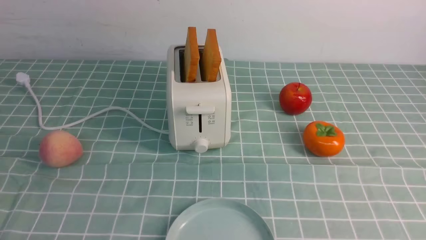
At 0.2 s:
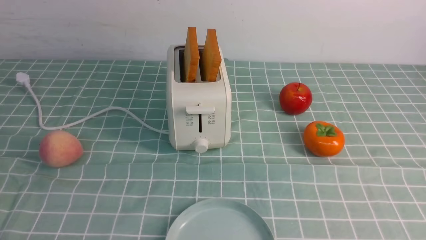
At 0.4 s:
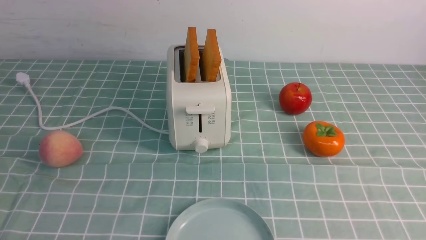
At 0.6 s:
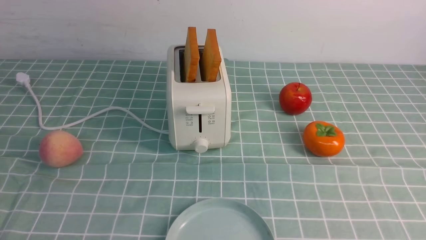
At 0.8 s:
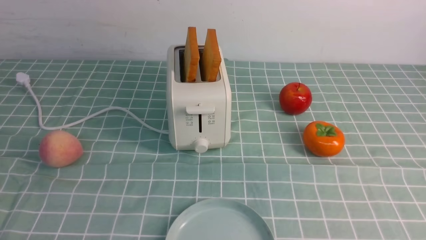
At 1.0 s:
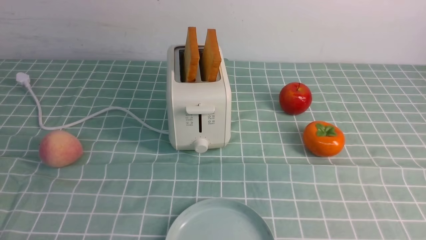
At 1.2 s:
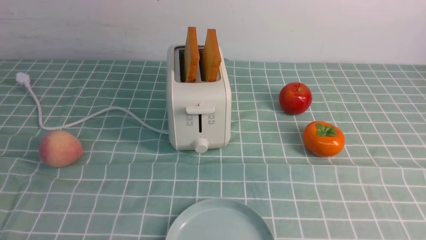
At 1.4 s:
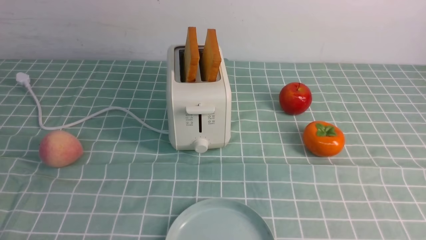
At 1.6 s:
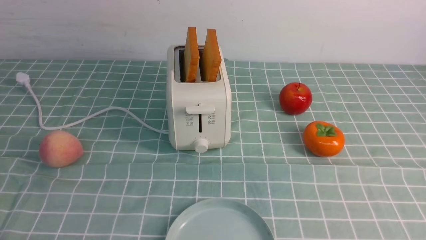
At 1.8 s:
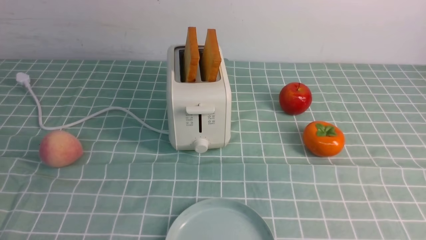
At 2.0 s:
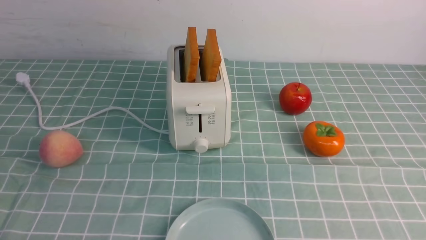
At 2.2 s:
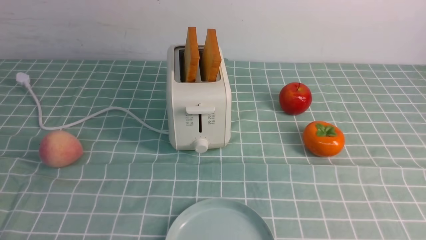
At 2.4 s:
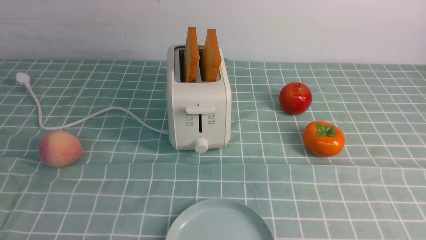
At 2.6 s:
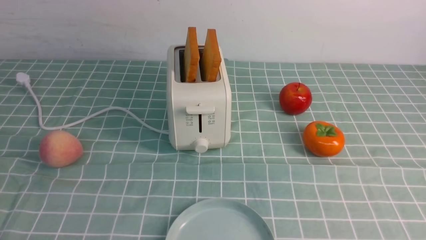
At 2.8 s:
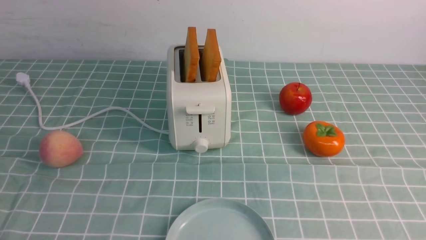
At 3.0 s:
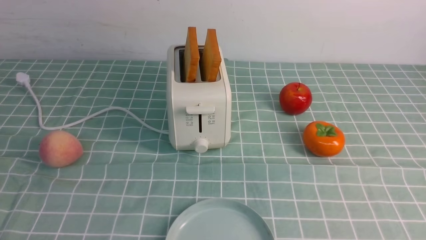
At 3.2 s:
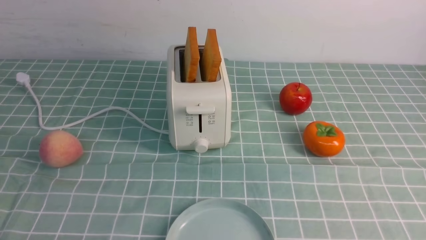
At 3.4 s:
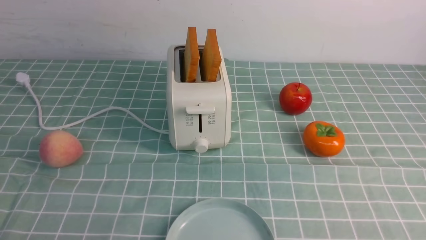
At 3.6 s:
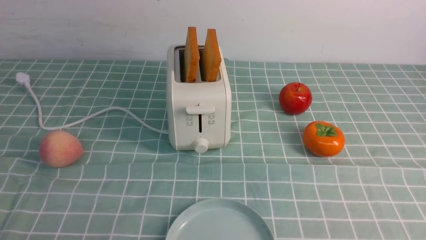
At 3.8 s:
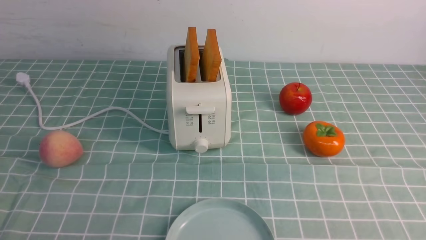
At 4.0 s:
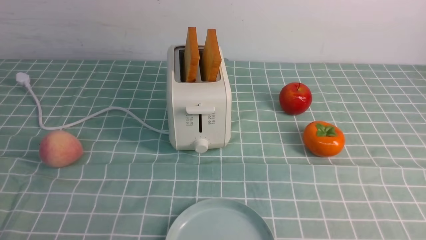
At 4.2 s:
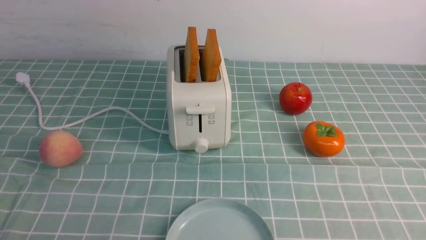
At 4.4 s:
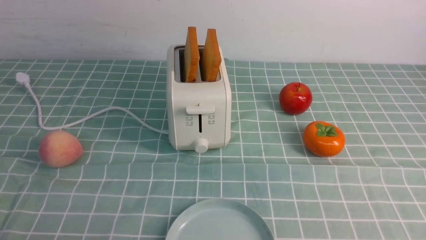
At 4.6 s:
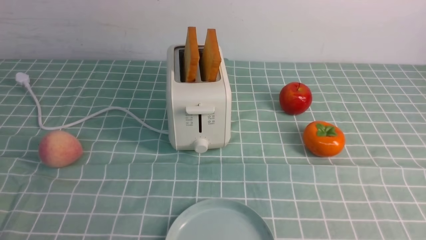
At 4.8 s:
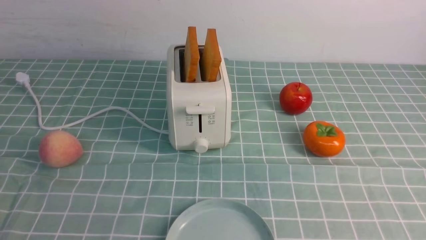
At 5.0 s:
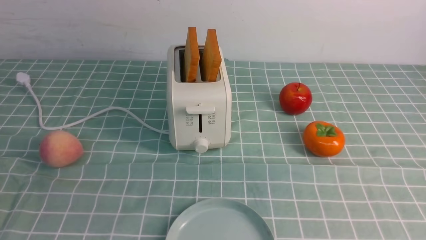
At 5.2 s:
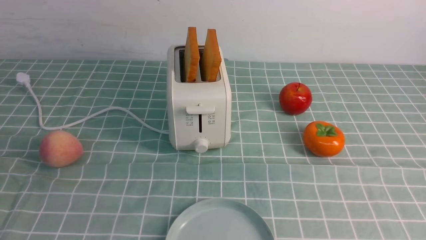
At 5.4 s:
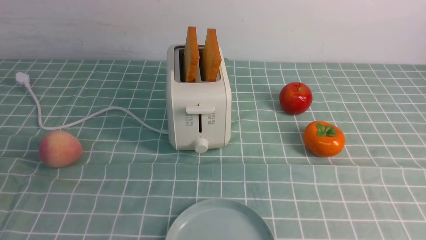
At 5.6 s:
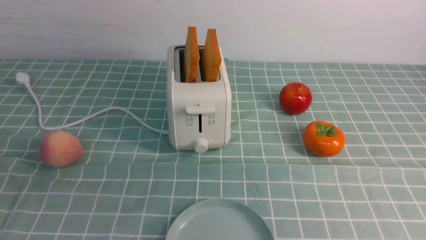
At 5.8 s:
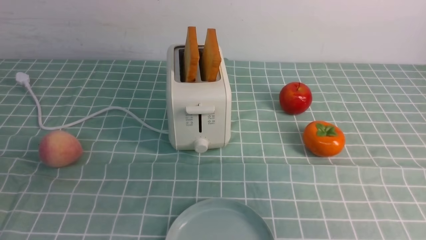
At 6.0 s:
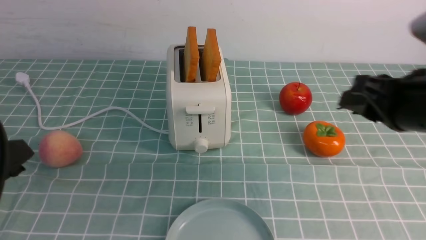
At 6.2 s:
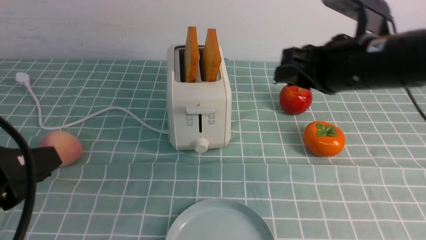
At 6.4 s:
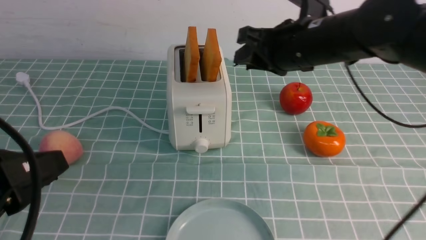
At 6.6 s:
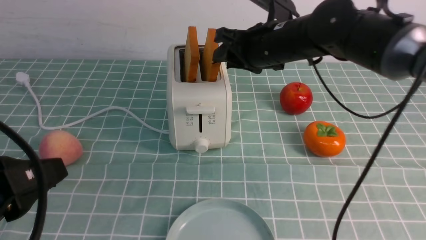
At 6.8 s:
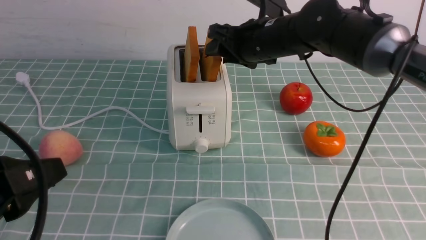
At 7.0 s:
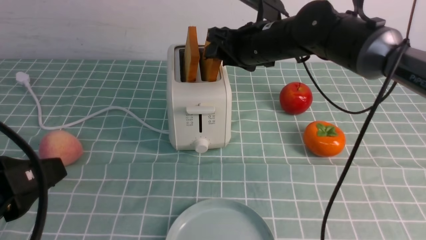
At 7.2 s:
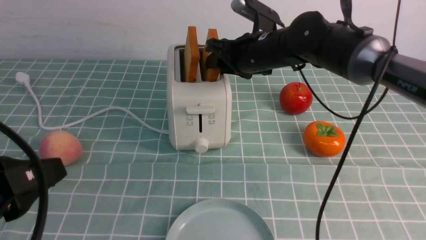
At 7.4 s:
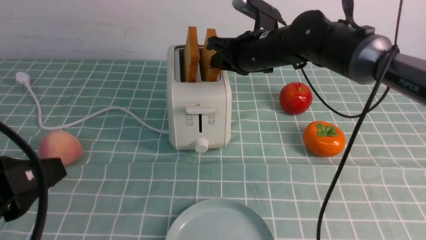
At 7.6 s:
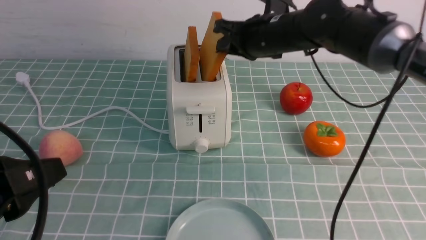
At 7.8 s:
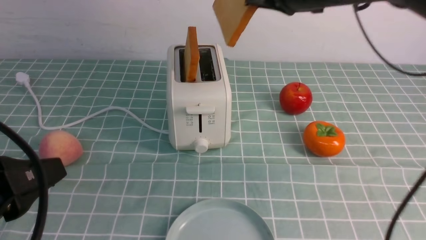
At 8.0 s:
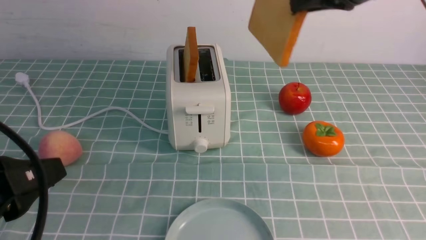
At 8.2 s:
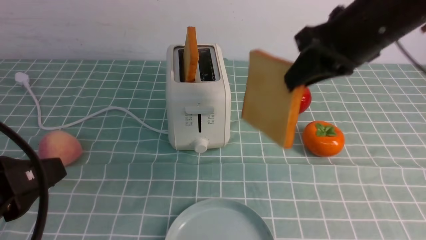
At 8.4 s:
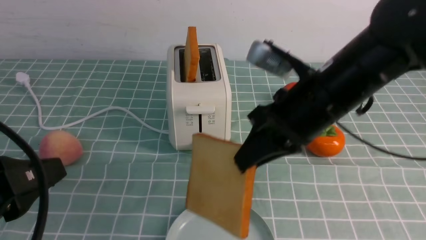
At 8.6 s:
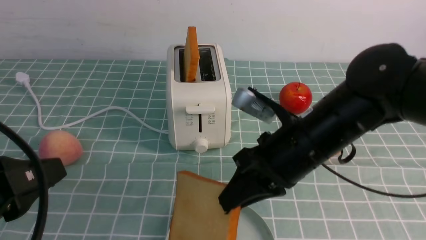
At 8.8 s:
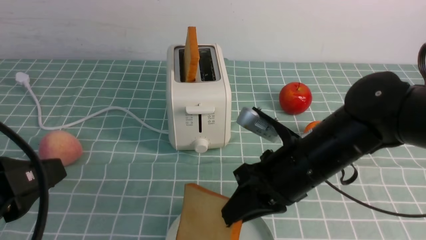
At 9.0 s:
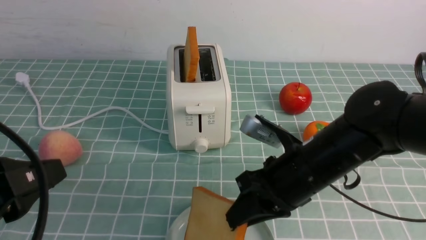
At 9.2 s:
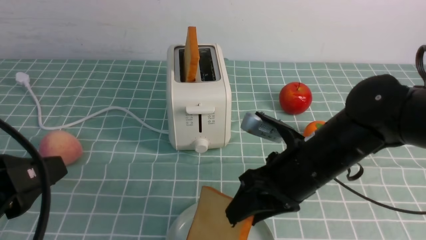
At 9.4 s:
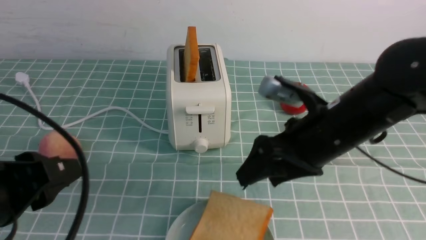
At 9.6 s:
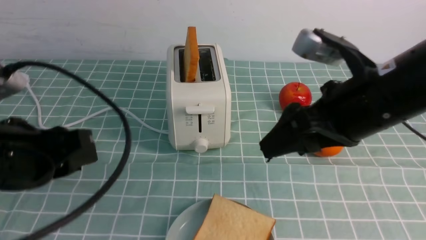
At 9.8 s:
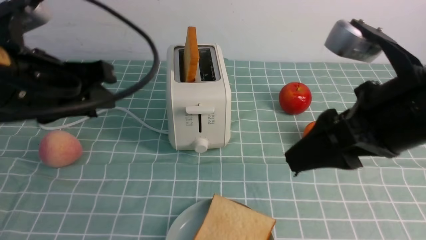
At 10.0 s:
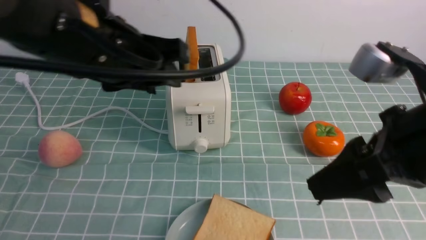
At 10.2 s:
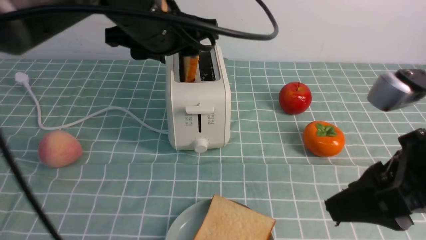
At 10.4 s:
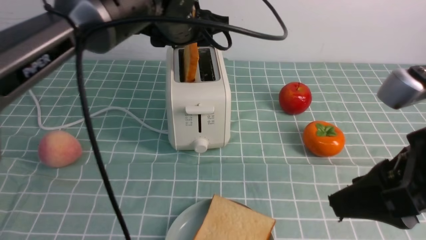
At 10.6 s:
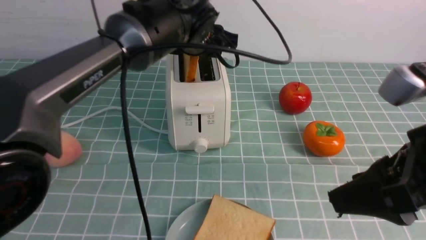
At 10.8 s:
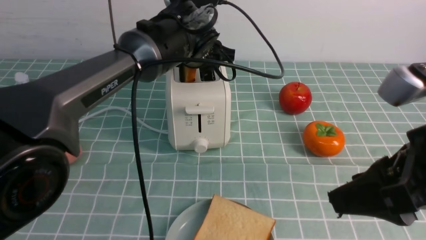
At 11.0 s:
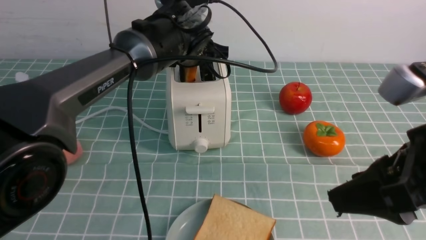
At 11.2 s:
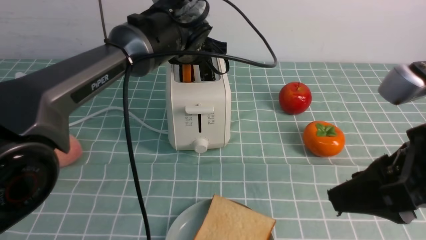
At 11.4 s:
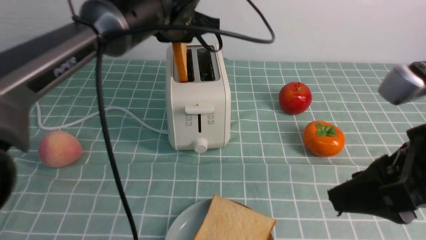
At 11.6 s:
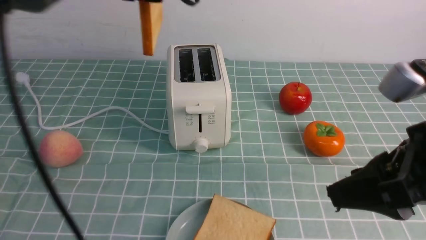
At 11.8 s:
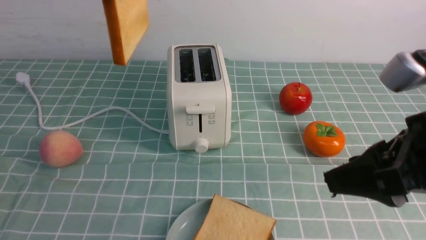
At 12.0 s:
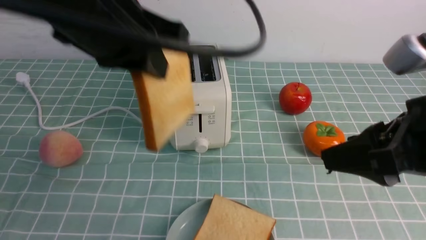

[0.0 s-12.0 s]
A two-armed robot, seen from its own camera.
Task of the whole recording: take toasted bread from bread machine on blue coffee table place on plate.
Step, 0.0 to 7.8 s: use the right arm to take out a slice of bread.
Step, 8.0 to 9.4 s: use the right arm to put a slice of bread into the plate.
Step, 9.6 to 11.6 s: use the left arm to take out a slice of bread.
0.0 to 1.6 s: Both grippers stay put.
4.4 to 6.0 s: The right gripper moves forward and upward, about 25 cm; the left gripper goes some 10 cm upward and forward.
6.0 to 7.6 s: The right gripper moves forward and to the left, roughly 20 cm.
7.6 to 9.0 s: The right gripper shifts roughly 20 cm backward and downward.
9.0 to 10.4 s: The left gripper moves forward and to the right, roughly 35 cm, and opens up, while the right gripper travels upward, backward and to the right by approximately 20 cm, and opens up.
10.4 to 12.0 s: The left gripper shifts roughly 15 cm backward, and closes its fingers.

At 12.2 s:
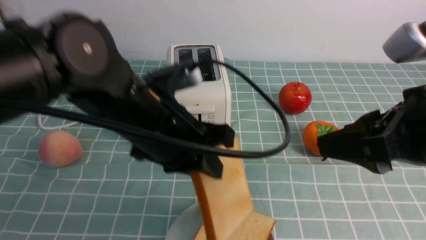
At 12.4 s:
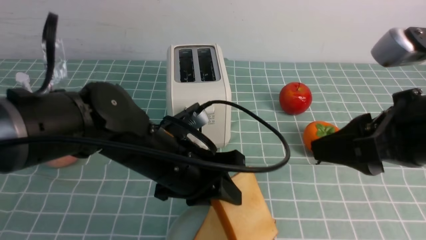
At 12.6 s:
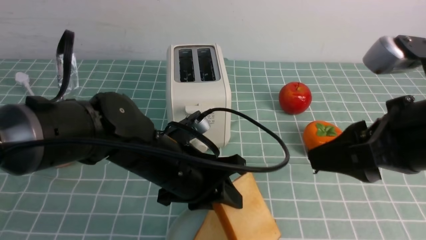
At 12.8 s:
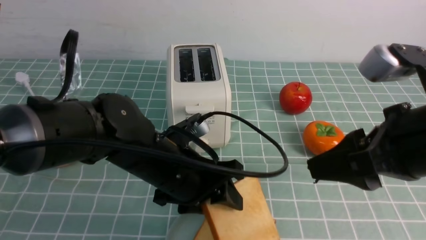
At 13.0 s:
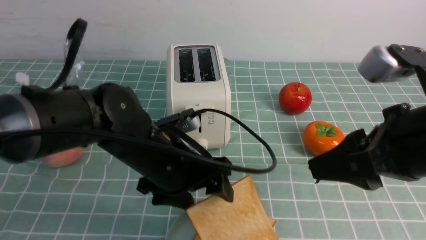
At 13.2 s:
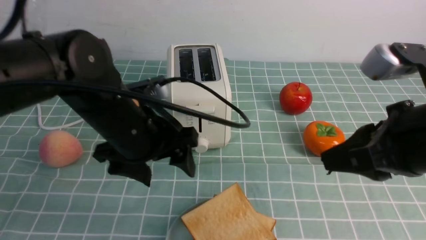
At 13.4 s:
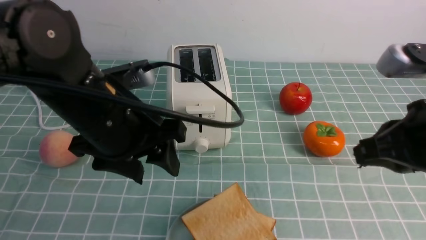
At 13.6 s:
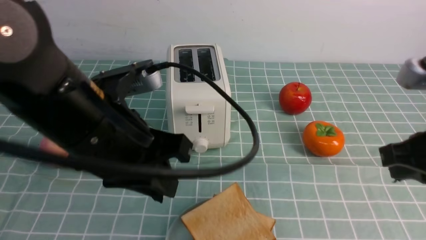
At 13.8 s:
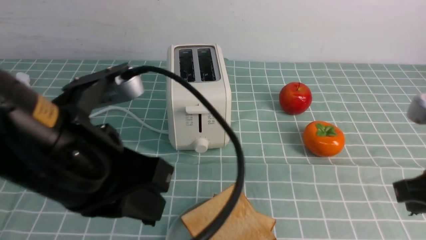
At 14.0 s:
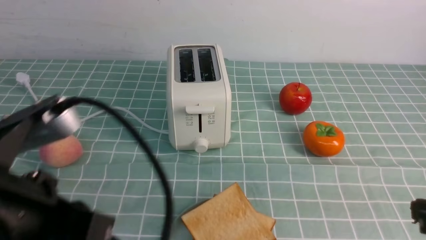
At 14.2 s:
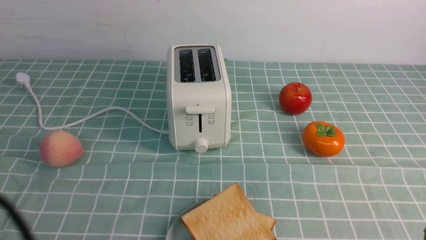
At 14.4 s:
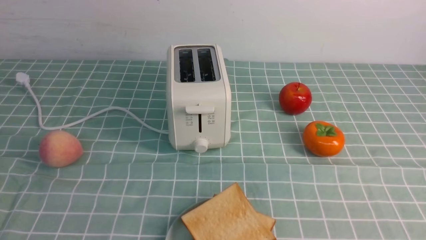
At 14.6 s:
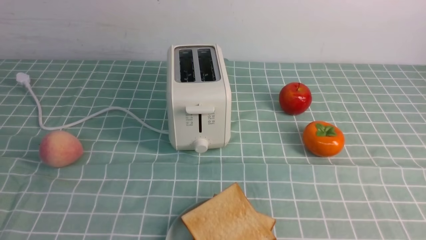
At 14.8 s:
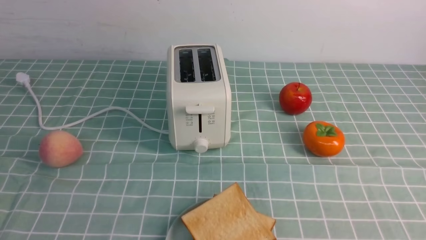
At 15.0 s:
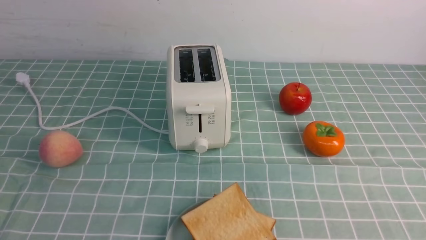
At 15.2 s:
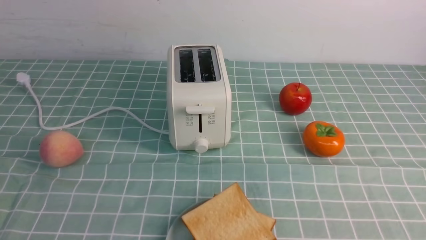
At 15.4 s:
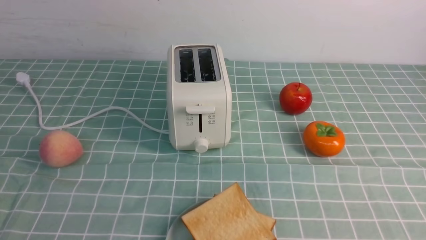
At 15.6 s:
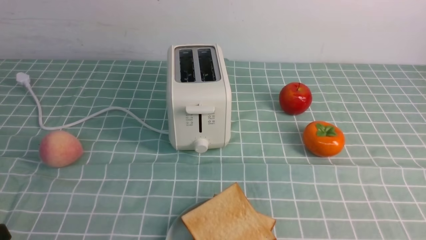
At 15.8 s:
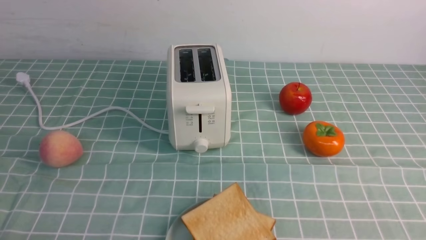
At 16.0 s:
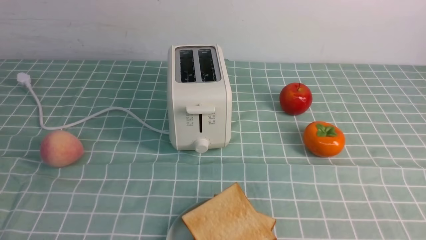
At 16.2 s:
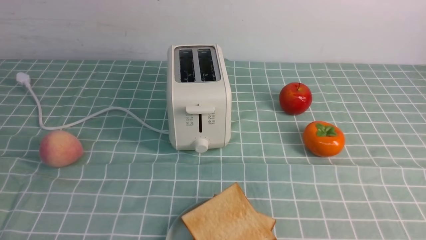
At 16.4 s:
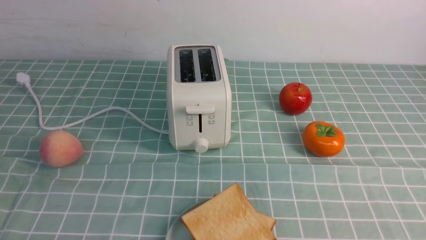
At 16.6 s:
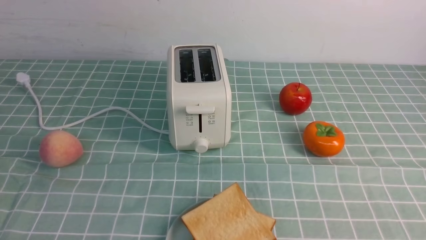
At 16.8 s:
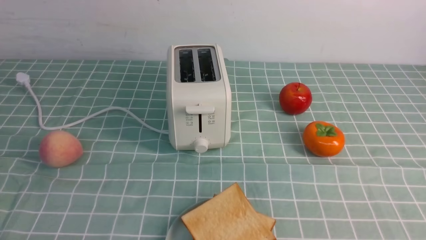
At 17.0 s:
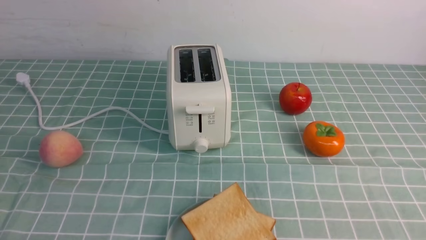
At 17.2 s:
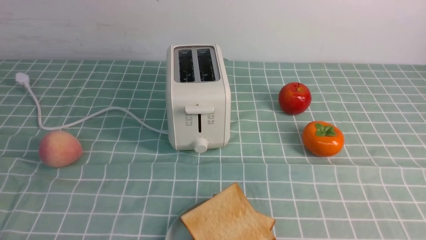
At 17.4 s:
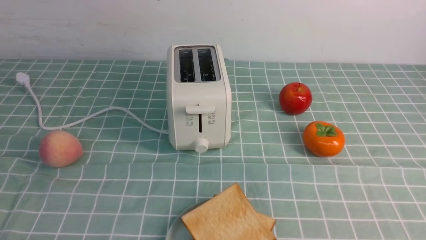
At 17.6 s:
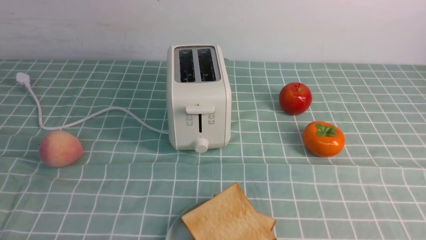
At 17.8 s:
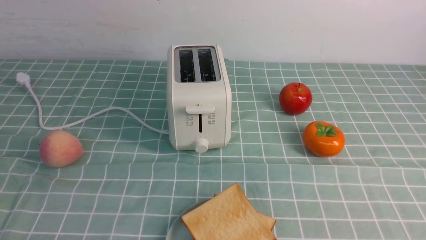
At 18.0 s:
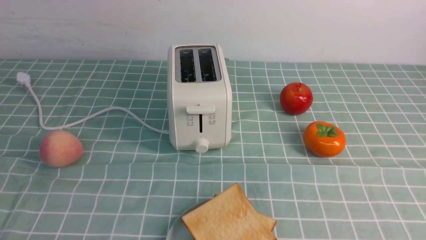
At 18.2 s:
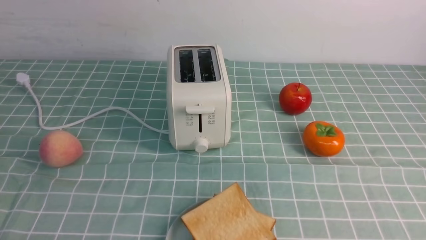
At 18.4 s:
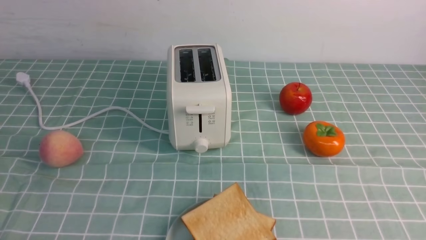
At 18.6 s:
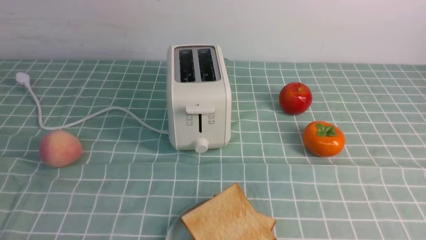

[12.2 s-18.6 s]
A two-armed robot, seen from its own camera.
Task of the whole recording: take toasted bread from bread machine on blue coffee table place on plate.
Step, 12.2 to 13.2 s: use the left arm to put a slice of bread into the empty plate.
12.2 to 13.8 s: The right gripper ends up some 5 cm from where it was, and closes up, while the left gripper travels backward and to the left by approximately 10 cm, and opens, then closes once more.
13.8 to 15.4 s: The left gripper heads backward, to the left and downward, covering roughly 20 cm. The right gripper goes roughly 15 cm backward and downward.
